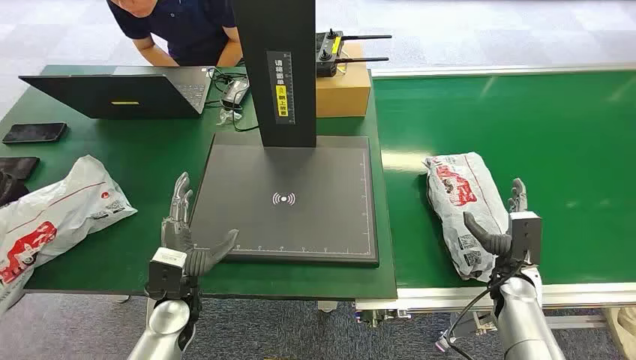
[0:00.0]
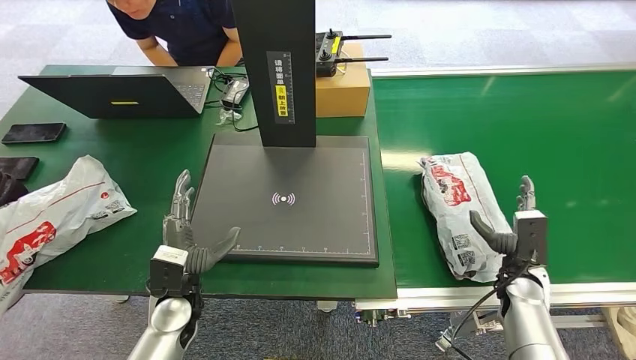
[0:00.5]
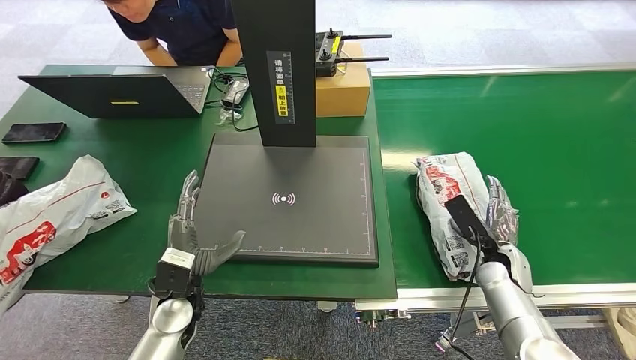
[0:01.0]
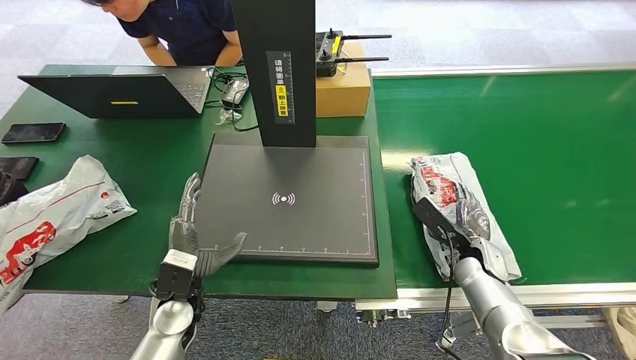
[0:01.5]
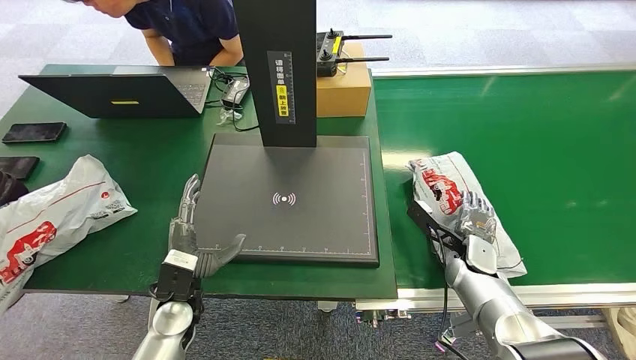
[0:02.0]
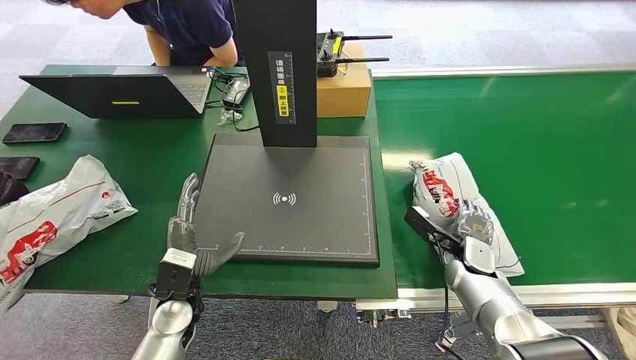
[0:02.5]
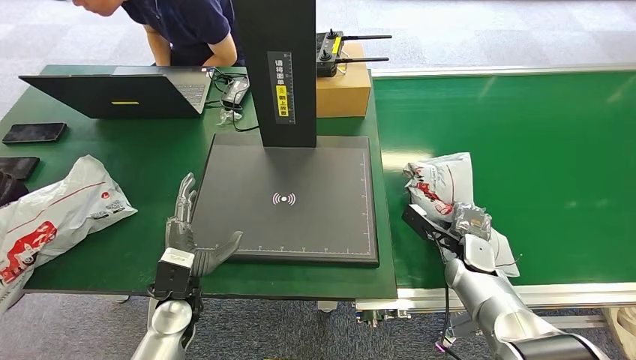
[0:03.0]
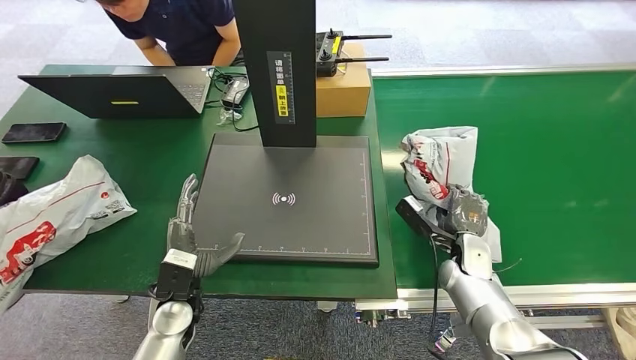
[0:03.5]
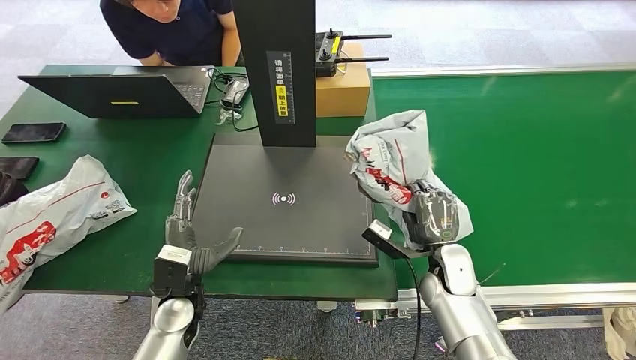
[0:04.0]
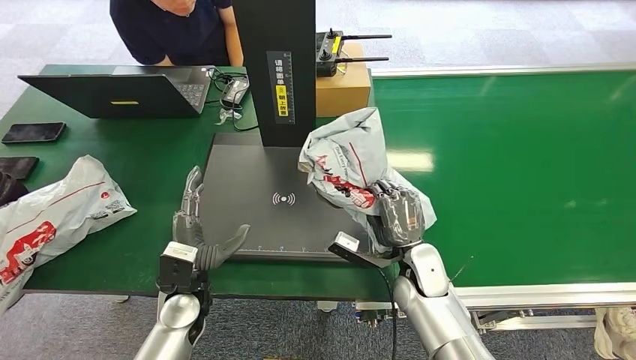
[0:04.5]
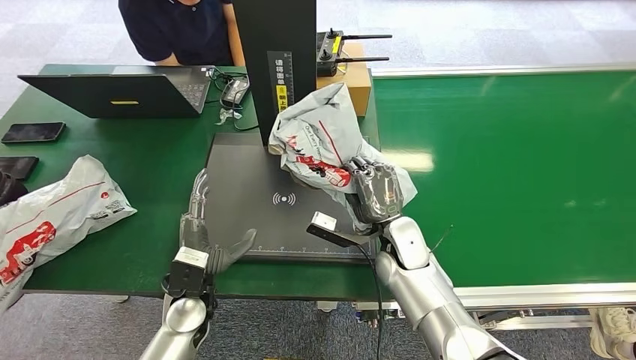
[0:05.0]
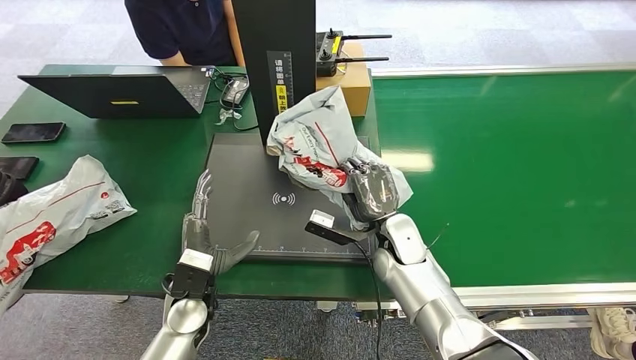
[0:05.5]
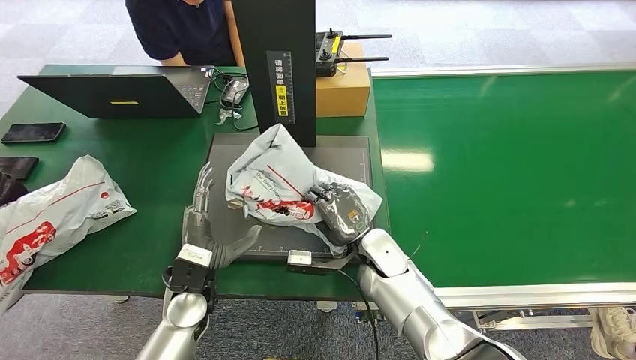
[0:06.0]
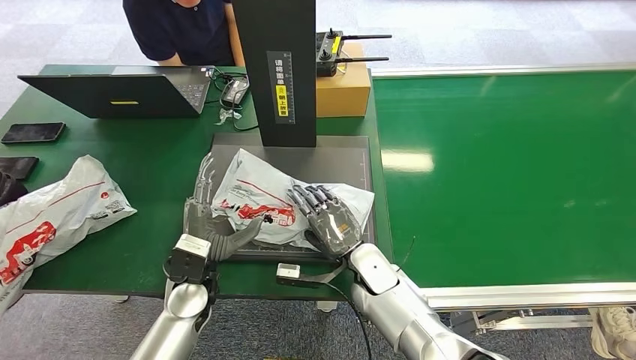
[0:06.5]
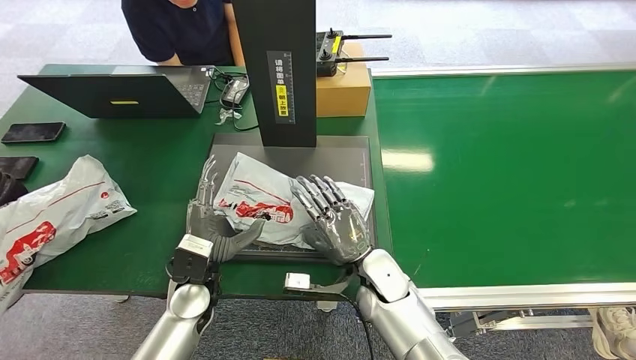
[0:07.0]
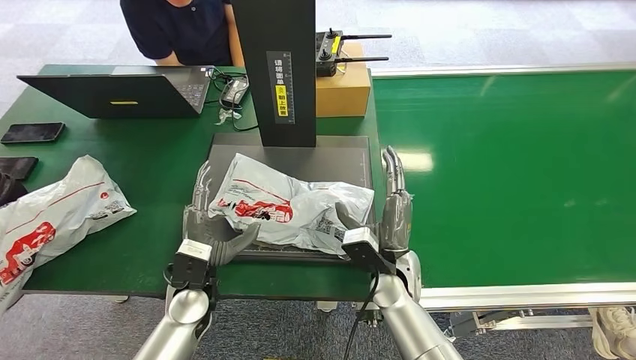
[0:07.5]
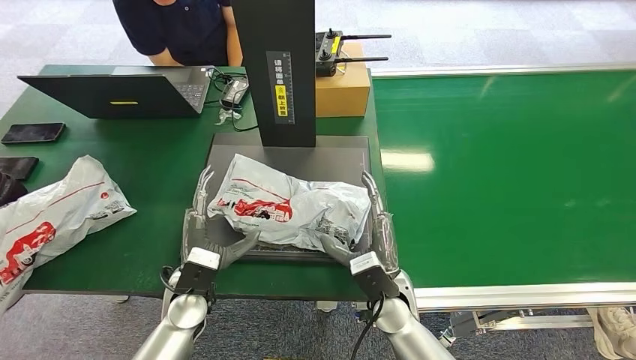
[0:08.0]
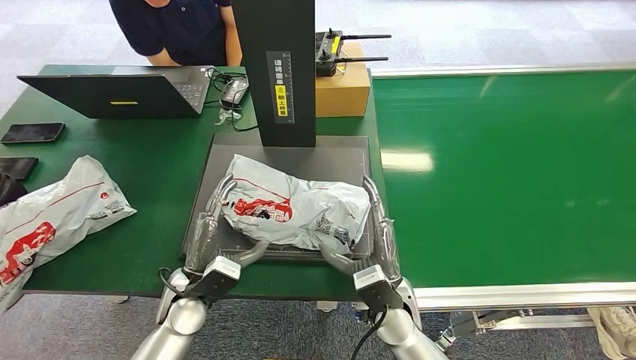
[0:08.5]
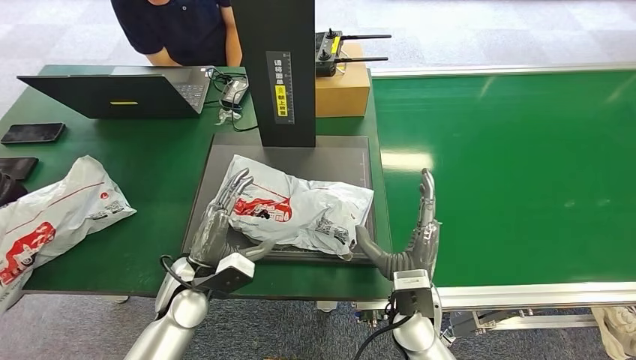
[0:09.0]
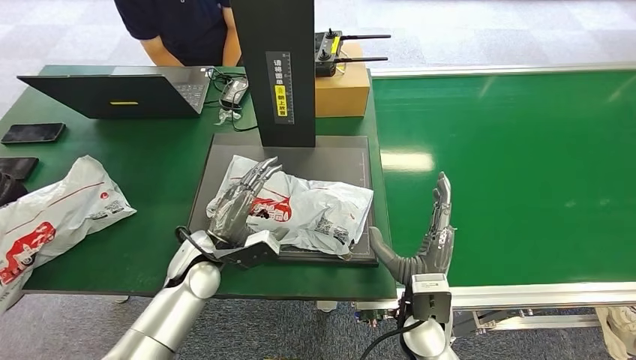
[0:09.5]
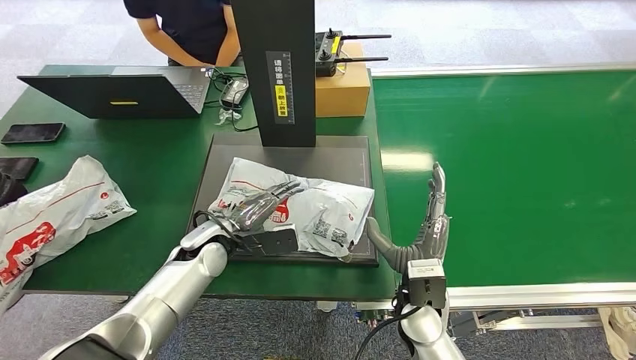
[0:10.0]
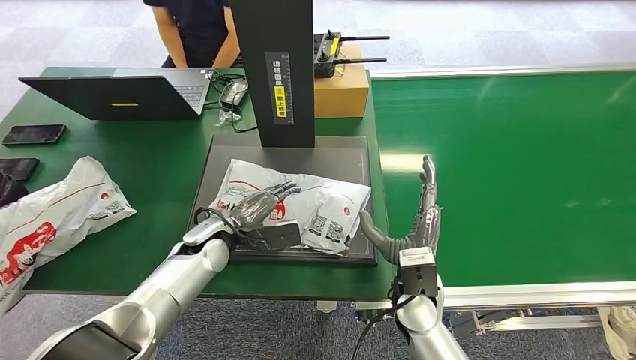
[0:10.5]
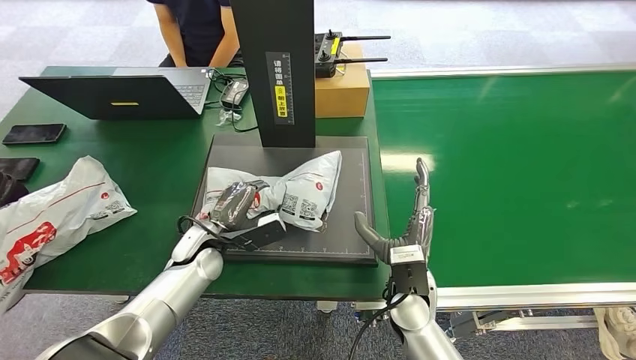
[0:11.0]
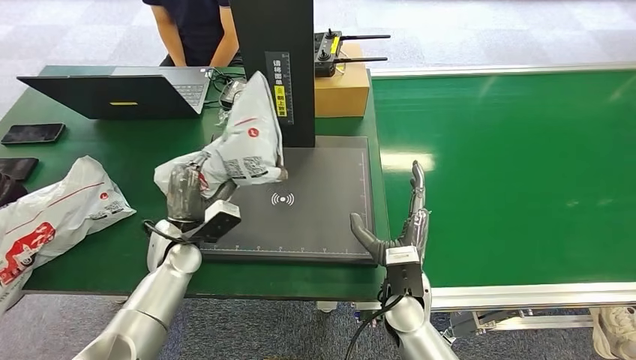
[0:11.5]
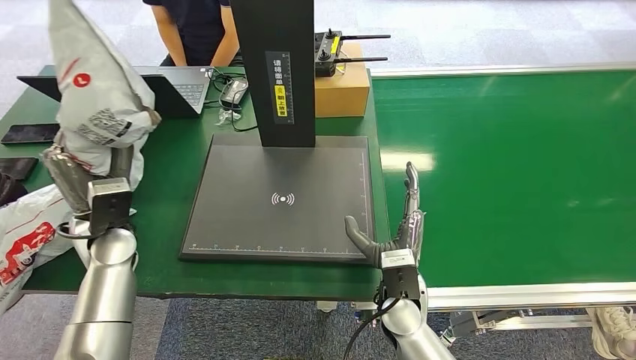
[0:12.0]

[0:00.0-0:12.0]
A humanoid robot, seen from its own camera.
Task of the whole recording: Weigh the package on the weighing device and place it in the left basket.
Step, 0:00.0 to 0:03.5: Pick up the package from the conveyor belt.
Step, 0:04.0 to 0:07.5: Place the package onto the inbound machine.
Step, 0:08.0 to 0:11.0: Pick up the package from the inbound machine.
0:02.0 to 0:04.0: The right hand travels to the left by approximately 5 cm.
0:06.0 to 0:08.0: The right hand heads backward, covering approximately 10 cm.
0:08.0 to 0:10.0: The left hand shifts some 10 cm forward. Meanwhile the right hand shifts by about 5 cm.

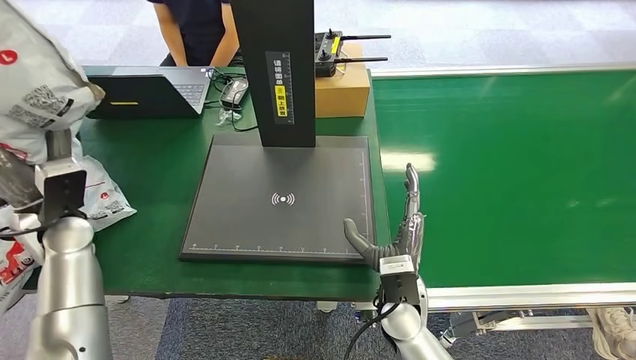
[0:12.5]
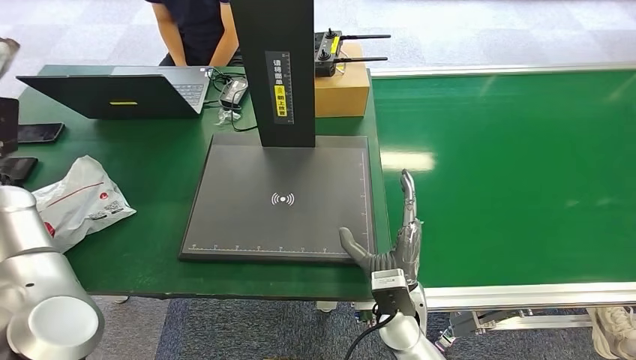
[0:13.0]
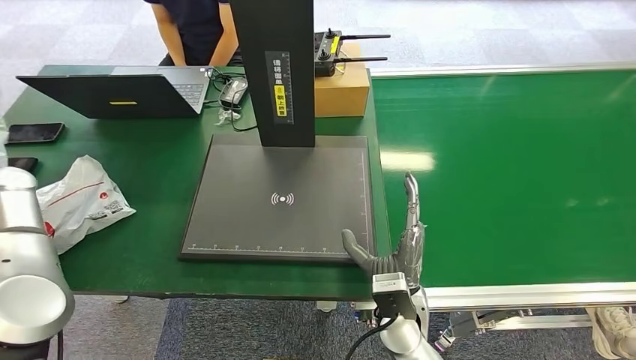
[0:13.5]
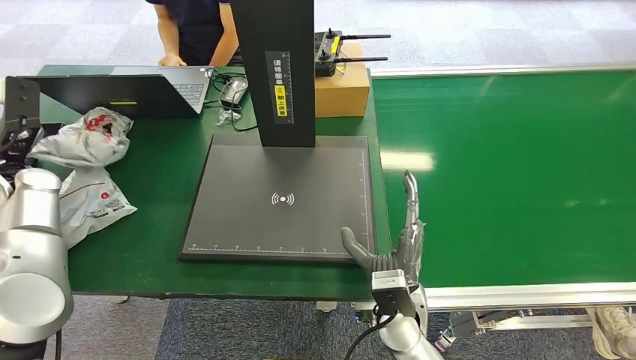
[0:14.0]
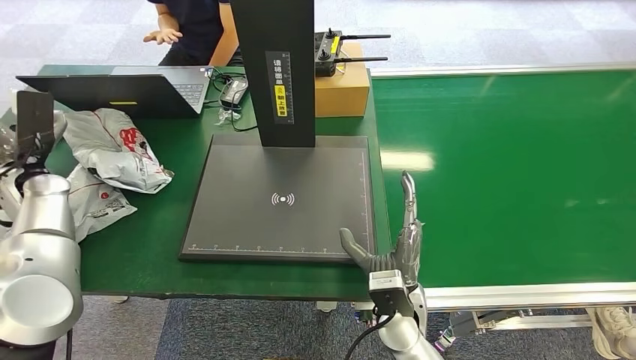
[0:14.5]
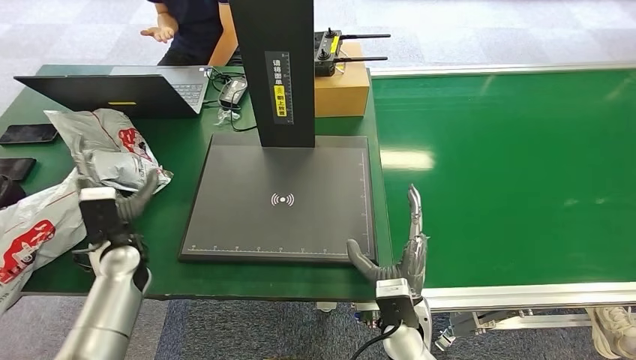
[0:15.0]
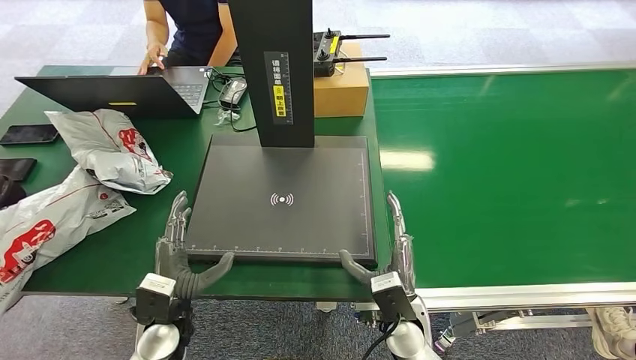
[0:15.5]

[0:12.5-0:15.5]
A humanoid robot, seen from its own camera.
Task of the whole recording: Weigh the package on the weighing device and place it in the left basket.
Step, 0:12.5 to 0:15.5: Place the package into the parcel locker.
0:12.5 to 0:14.0: The left hand is displaced to the left and forward by roughly 10 cm.
0:14.0 to 0:15.5: The left hand moves to the right, backward and downward, about 35 cm.
